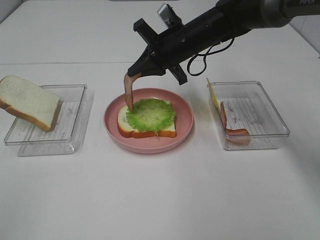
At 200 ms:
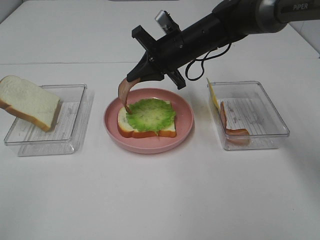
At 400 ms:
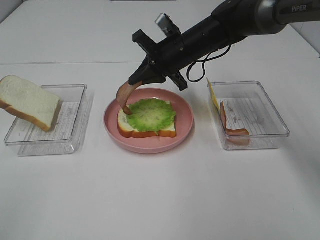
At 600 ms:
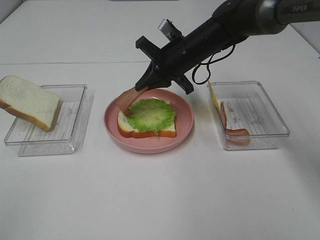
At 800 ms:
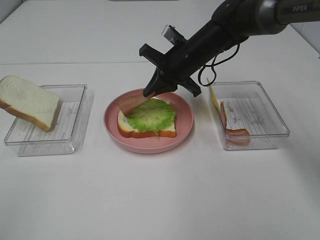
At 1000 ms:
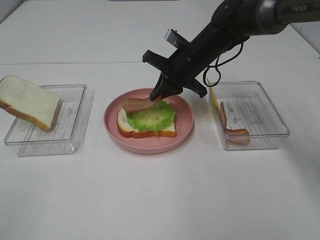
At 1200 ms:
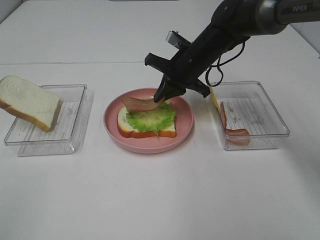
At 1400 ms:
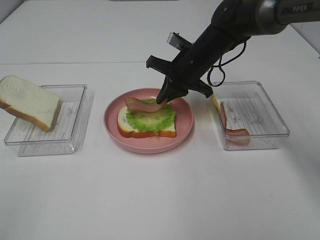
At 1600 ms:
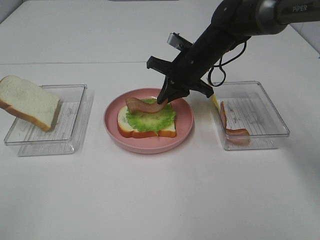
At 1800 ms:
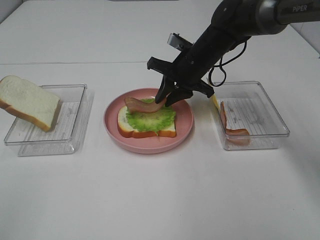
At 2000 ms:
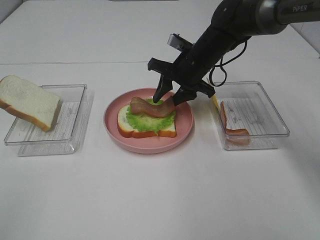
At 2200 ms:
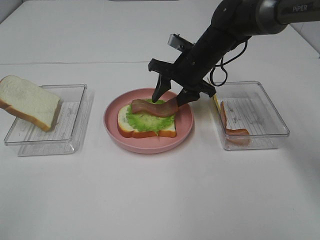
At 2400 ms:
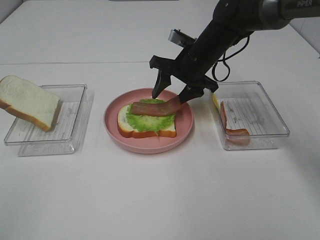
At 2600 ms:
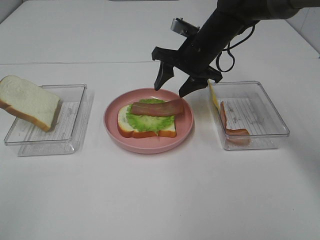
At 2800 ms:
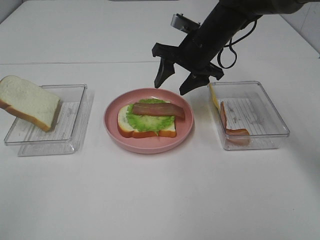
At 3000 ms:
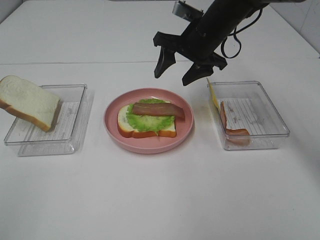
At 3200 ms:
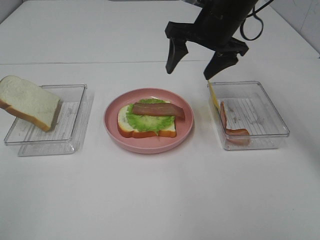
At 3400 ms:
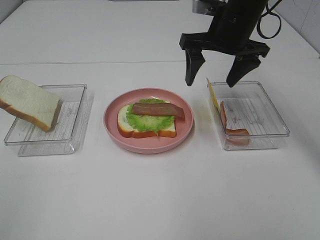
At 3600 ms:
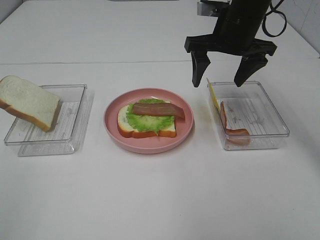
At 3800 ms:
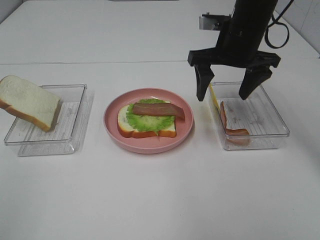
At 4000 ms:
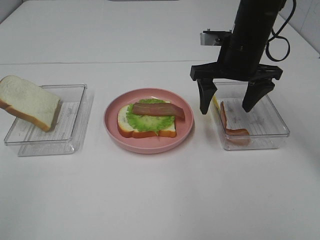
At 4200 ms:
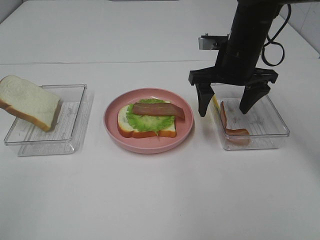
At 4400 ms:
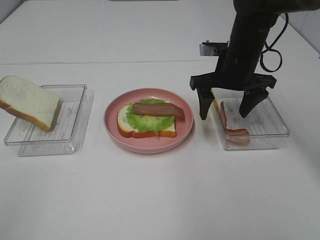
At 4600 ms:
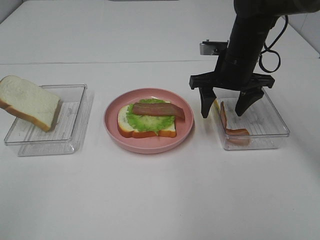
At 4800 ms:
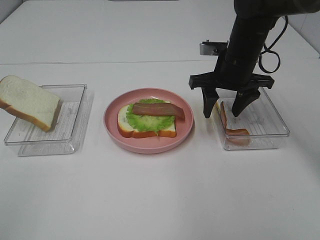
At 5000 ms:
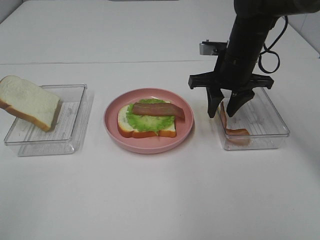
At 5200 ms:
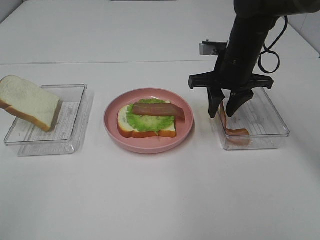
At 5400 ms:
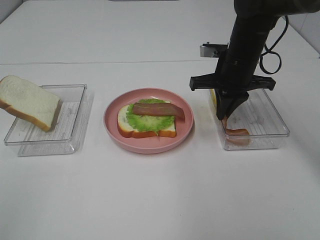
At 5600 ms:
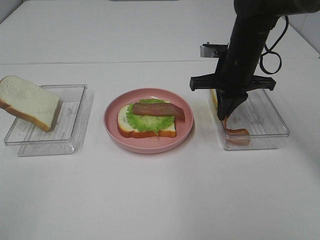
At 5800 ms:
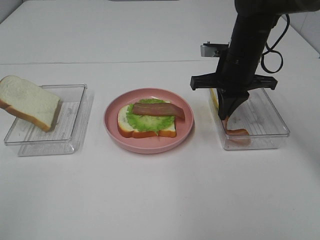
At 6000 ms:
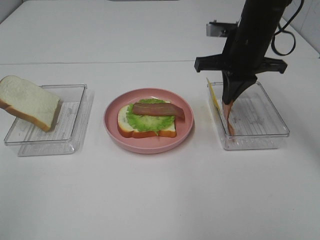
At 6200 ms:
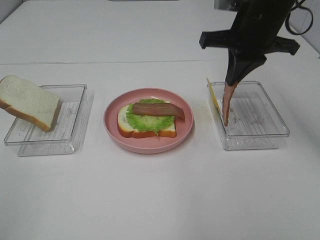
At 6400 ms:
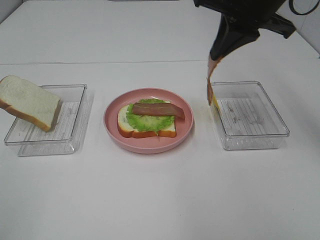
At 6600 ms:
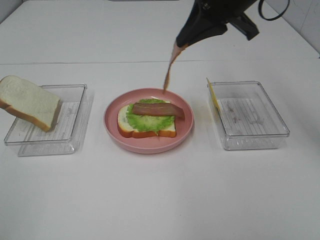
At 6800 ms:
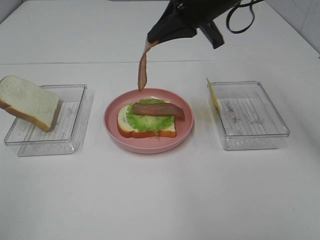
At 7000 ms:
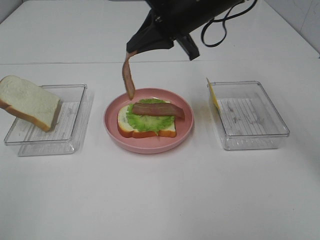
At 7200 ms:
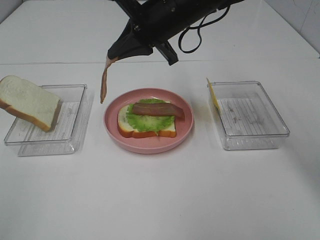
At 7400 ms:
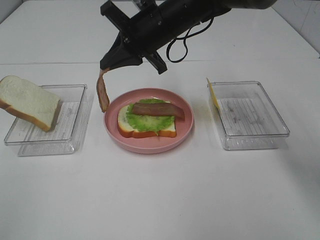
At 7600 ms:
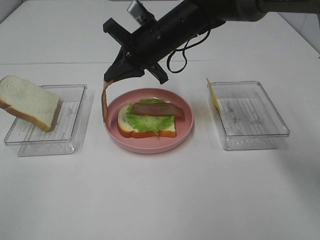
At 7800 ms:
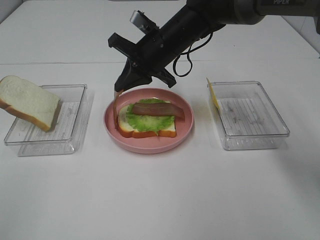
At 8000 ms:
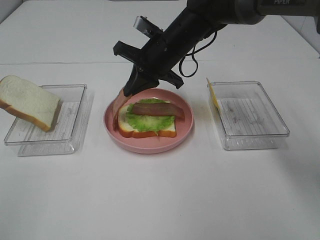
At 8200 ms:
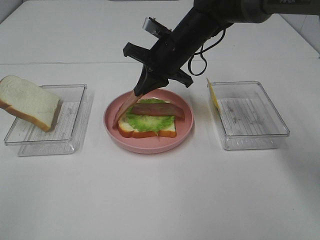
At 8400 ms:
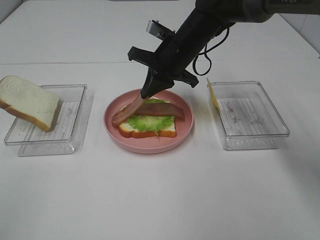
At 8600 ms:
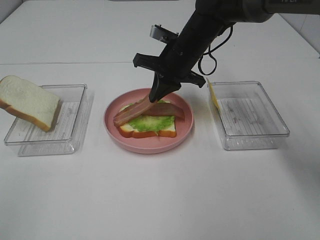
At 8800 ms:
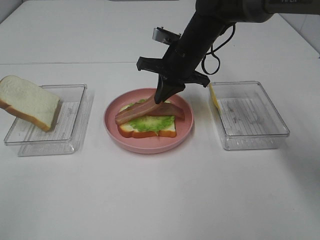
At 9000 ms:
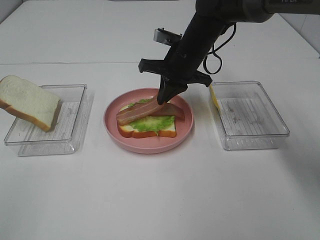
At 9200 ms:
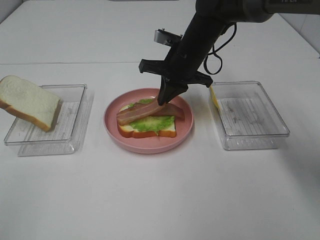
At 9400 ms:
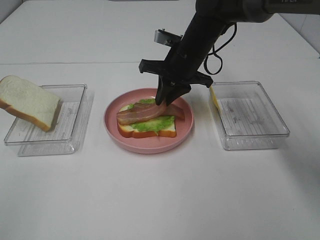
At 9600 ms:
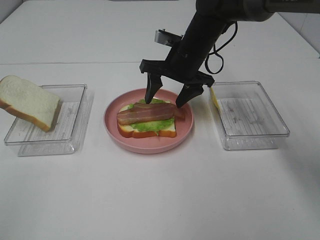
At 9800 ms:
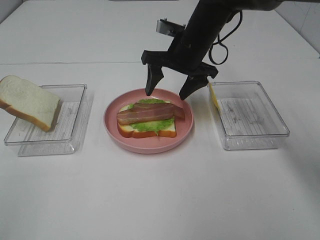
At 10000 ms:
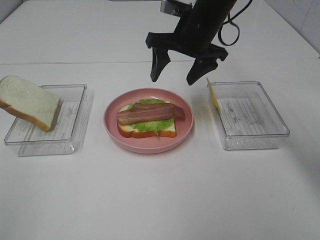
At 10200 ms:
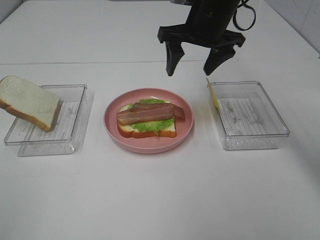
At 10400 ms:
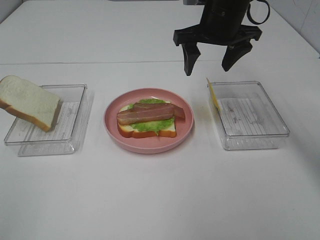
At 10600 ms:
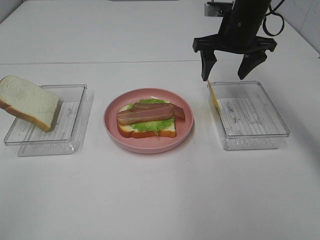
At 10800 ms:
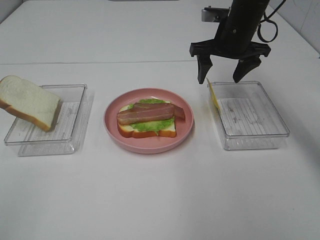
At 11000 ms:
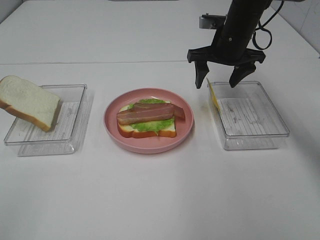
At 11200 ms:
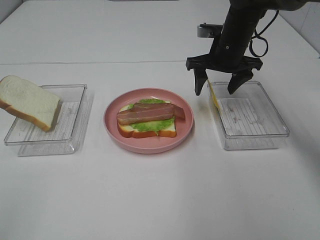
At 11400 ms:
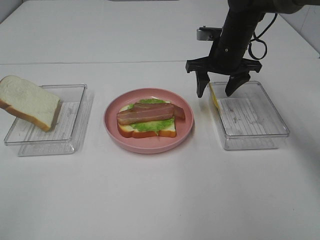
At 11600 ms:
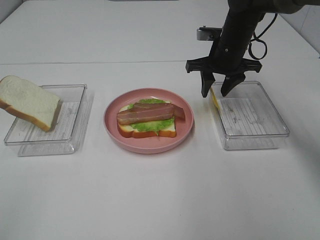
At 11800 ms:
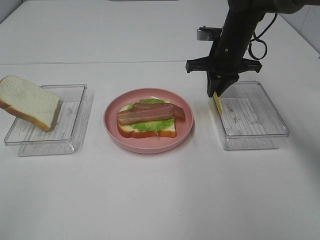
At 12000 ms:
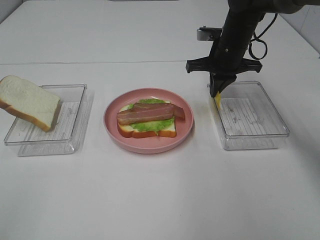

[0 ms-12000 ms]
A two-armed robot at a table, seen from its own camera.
Task of the whole recording: Make sandwiches.
Step, 0 ms to 2600 ms: Right hand:place bacon on lettuce slice.
Step, 2800 ms to 5600 ms: Right hand:grab the bacon.
Step, 5800 ms to 9800 ms: Right hand:place bacon on bacon.
Step, 10000 ms to 11800 ms: Right hand:grab the cheese slice.
1600 ms to 3000 ms: The right gripper heads upward, covering about 5 cm, and opens up.
3000 ms to 4400 ms: The right gripper changes place by roughly 5 cm.
4400 ms to 6000 ms: The right gripper closes up.
6000 ms to 7600 ms: The right gripper heads to the left, covering some 15 cm.
7600 ms to 9000 ms: The right gripper changes place by some 5 cm.
9000 ms to 10400 ms: The right gripper is displaced upward and to the right by some 10 cm, and opens.
10400 ms to 12000 ms: The right gripper is displaced downward by about 10 cm, and closes.

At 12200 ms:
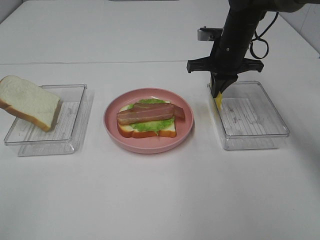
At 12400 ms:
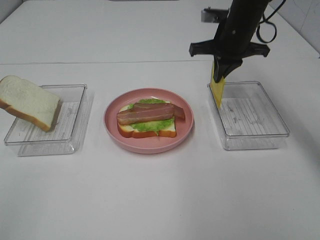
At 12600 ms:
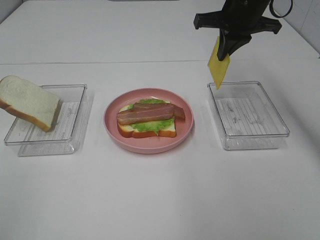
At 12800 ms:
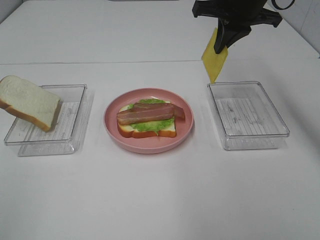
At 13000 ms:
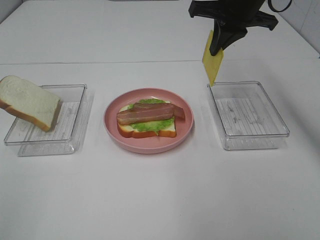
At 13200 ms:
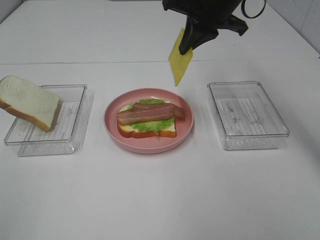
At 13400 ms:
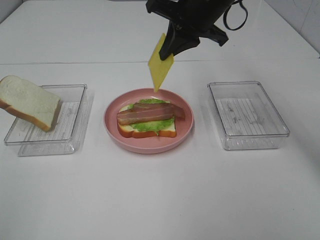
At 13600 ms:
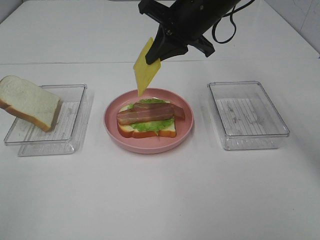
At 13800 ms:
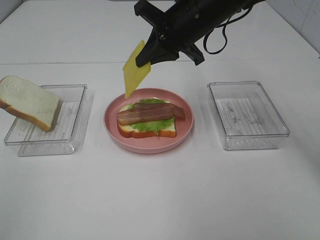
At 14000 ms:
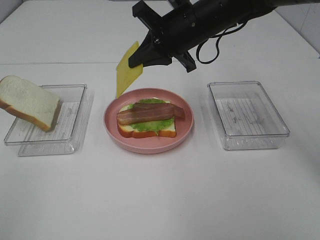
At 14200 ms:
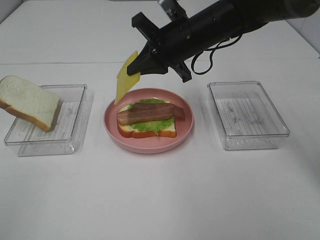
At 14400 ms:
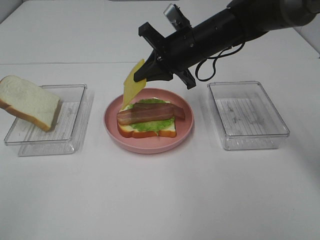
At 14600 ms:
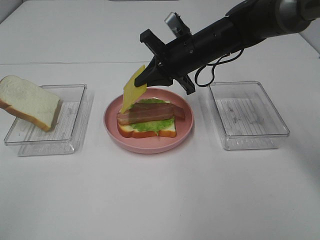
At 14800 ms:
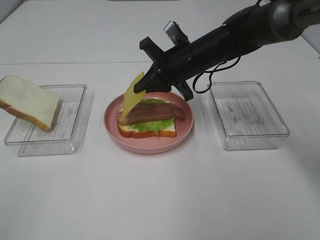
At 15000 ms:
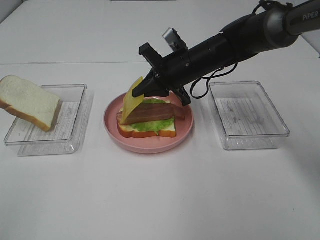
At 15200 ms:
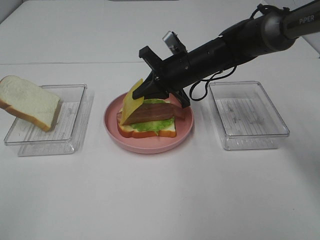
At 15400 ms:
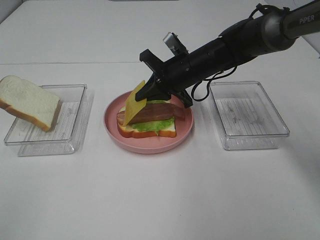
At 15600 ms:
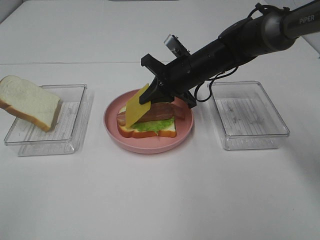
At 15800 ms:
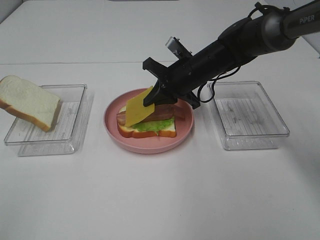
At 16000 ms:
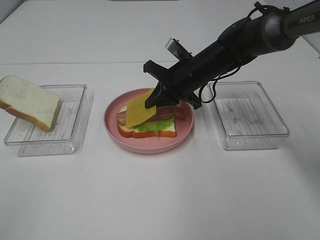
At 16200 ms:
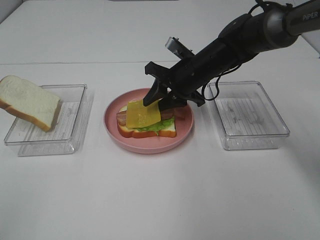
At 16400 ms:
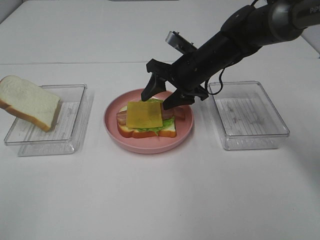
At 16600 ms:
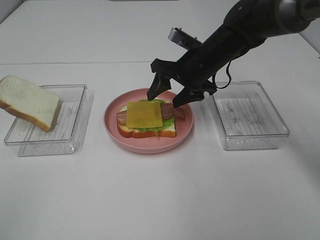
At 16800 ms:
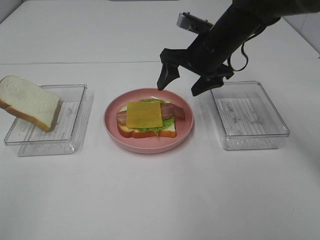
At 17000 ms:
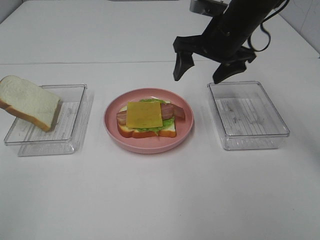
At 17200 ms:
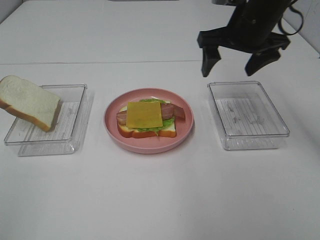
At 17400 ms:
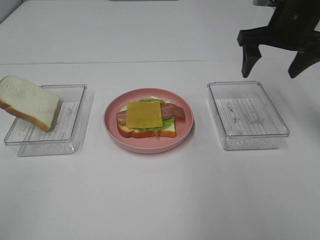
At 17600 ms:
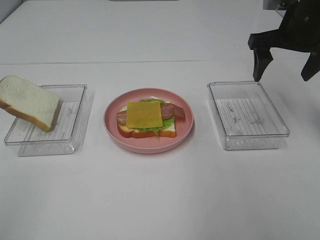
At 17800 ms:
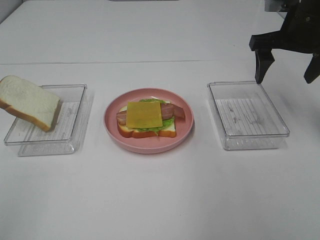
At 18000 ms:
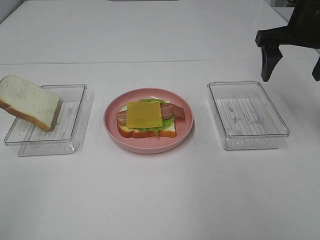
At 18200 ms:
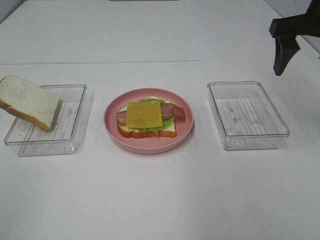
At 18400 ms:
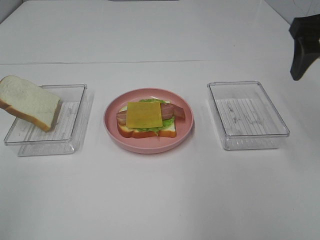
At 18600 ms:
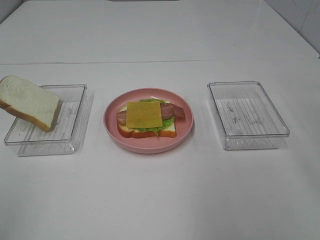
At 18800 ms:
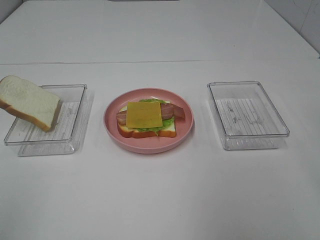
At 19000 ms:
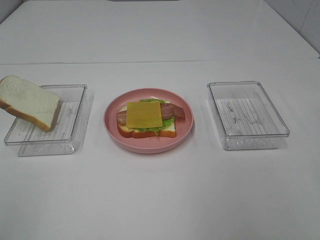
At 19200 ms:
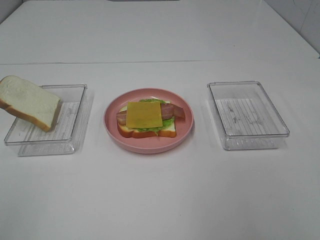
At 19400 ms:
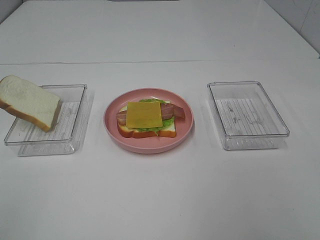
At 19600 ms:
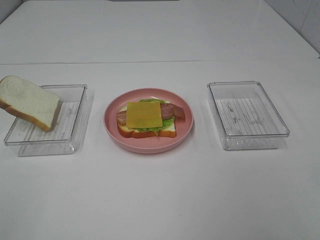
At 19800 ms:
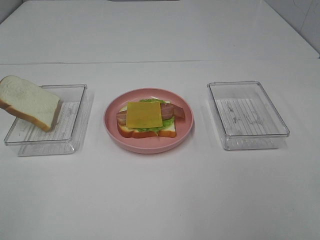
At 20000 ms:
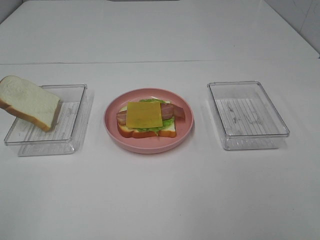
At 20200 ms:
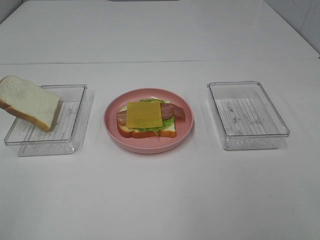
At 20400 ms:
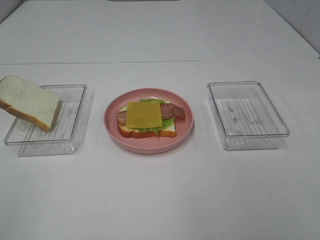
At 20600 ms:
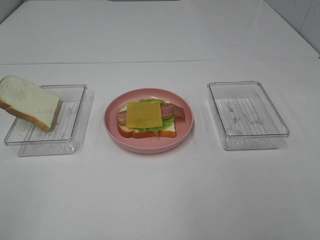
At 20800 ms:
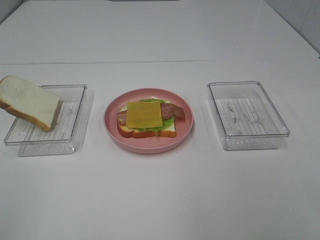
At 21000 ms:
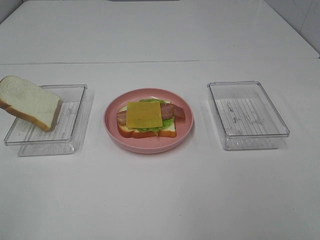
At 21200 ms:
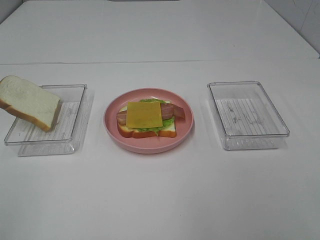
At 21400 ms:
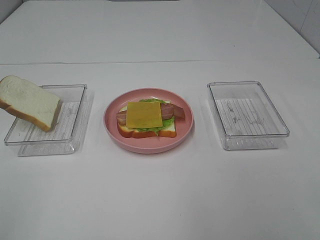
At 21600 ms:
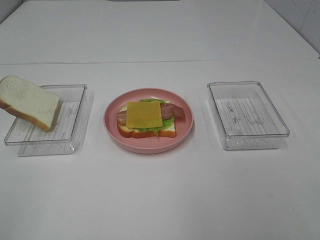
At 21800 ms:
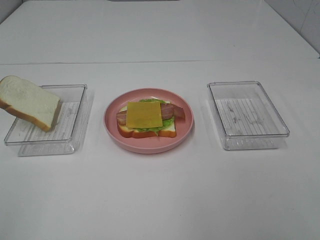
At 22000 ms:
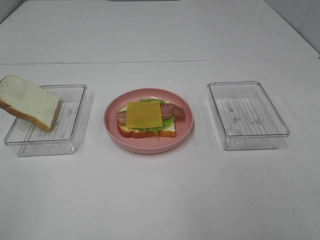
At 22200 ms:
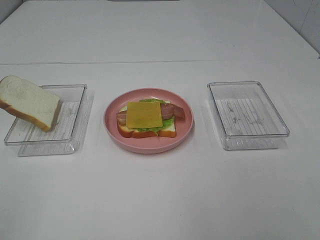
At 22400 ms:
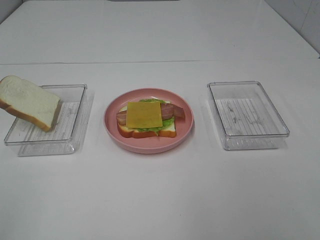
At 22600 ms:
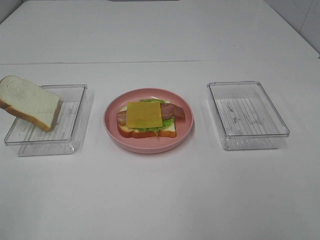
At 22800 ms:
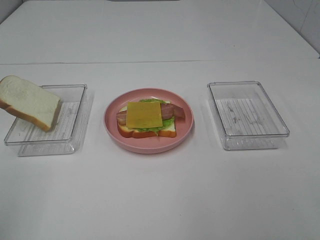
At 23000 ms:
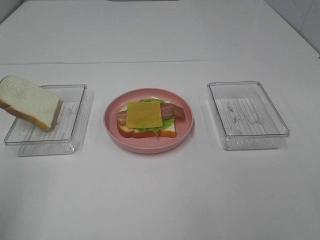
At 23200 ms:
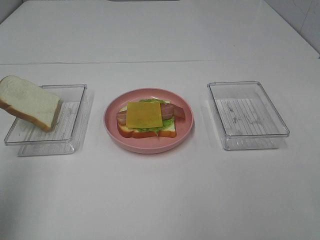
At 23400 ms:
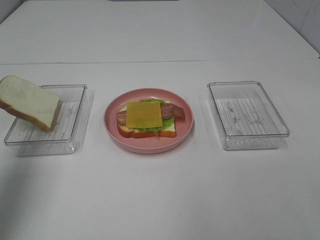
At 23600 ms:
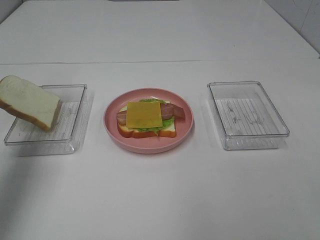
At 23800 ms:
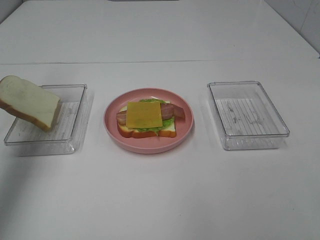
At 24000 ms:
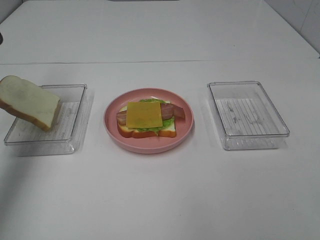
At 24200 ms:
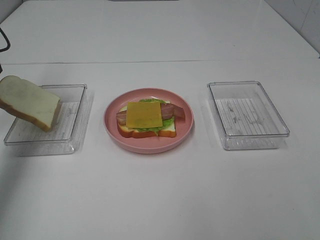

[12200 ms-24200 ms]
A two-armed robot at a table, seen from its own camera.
Task of the whole recording: Make sandwiches.
Step, 12200 ms to 16600 ms: Right hand:place the cheese slice on top of the bacon.
12200 ms to 13800 ms: The right gripper travels to the left, upward and backward by approximately 10 cm.
13800 ms to 15200 ms: The right gripper is displaced downward by about 10 cm.
15200 ms to 16600 ms: The right gripper opens.
16600 ms to 18200 ms: The right gripper heads to the right, upward and backward, covering roughly 20 cm.
18200 ms to 19800 ms: The right gripper moves backward, approximately 35 cm.
21200 ms to 22600 ms: Both grippers stay about where they are.
22600 ms to 24200 ms: The left gripper moves forward, some 40 cm.
